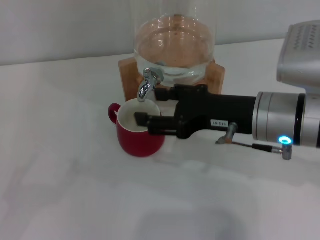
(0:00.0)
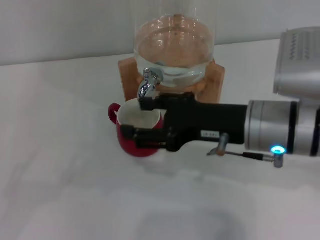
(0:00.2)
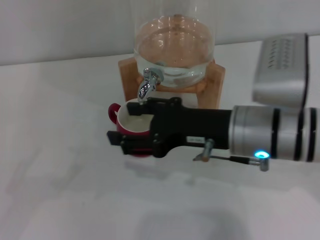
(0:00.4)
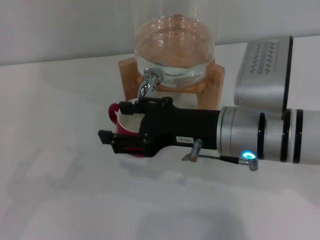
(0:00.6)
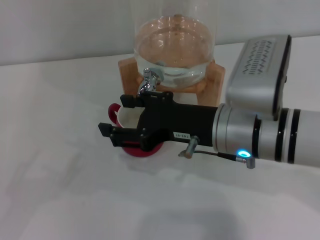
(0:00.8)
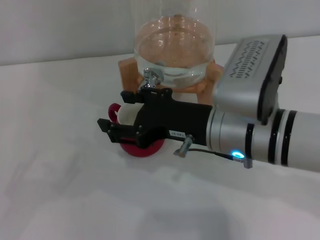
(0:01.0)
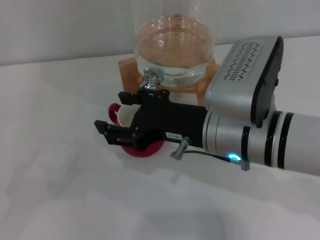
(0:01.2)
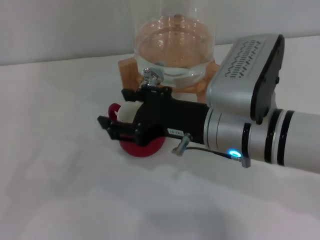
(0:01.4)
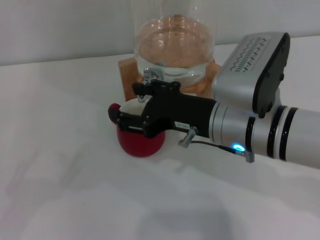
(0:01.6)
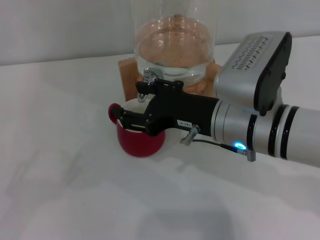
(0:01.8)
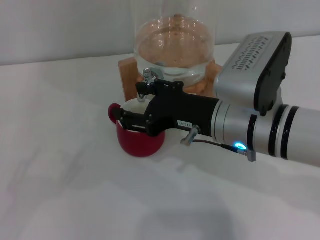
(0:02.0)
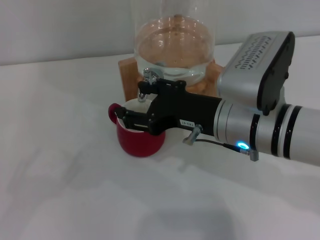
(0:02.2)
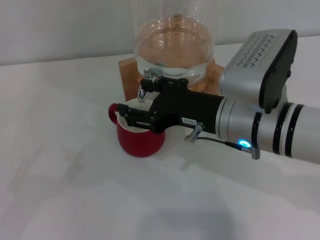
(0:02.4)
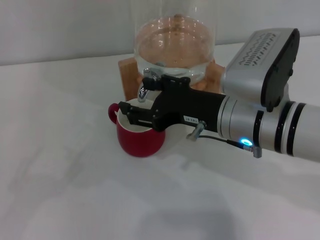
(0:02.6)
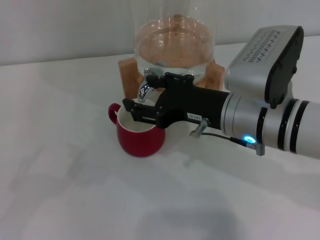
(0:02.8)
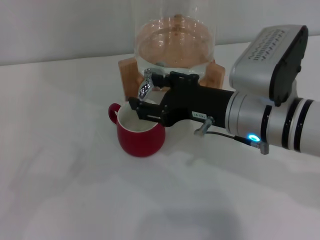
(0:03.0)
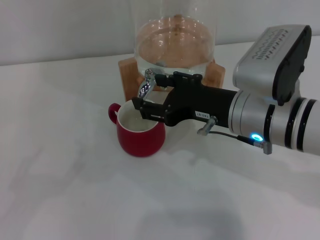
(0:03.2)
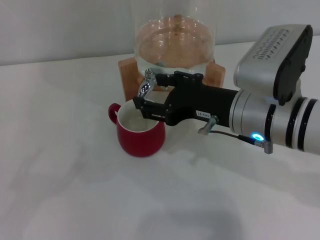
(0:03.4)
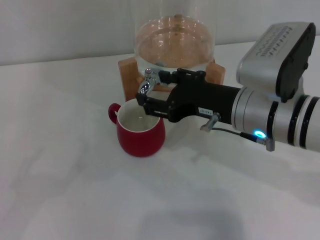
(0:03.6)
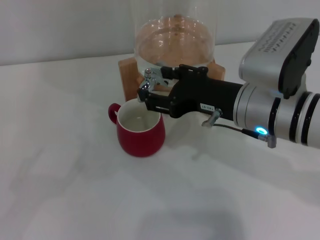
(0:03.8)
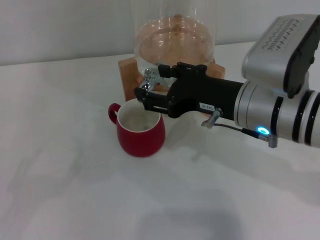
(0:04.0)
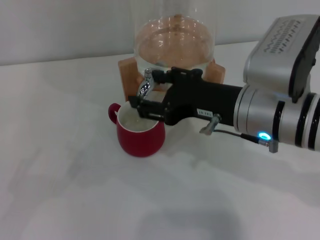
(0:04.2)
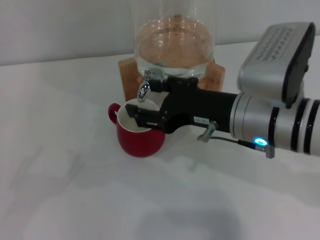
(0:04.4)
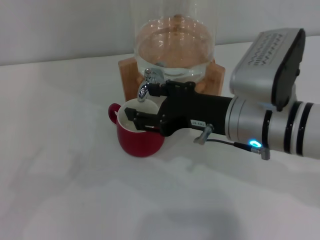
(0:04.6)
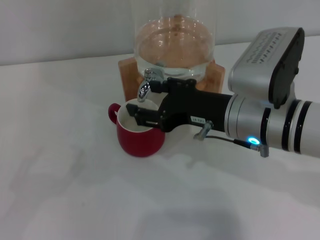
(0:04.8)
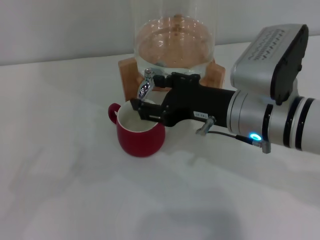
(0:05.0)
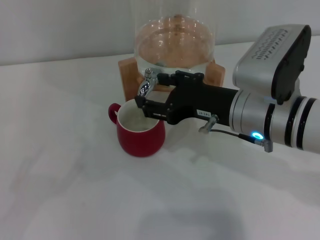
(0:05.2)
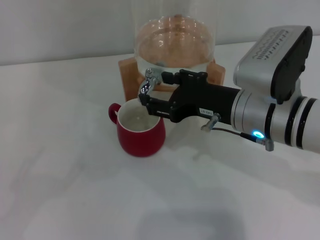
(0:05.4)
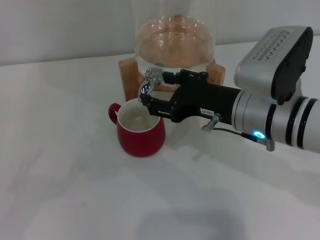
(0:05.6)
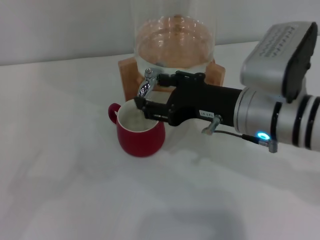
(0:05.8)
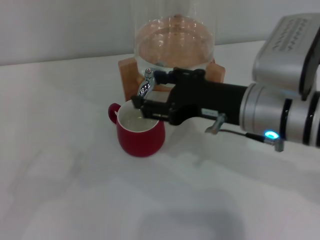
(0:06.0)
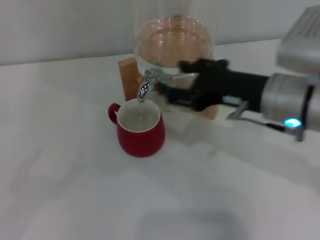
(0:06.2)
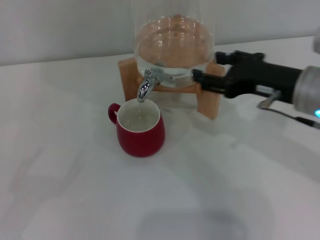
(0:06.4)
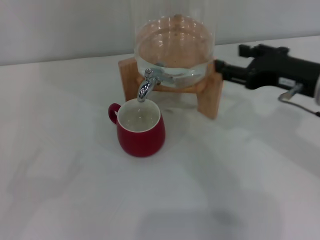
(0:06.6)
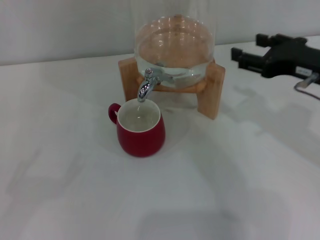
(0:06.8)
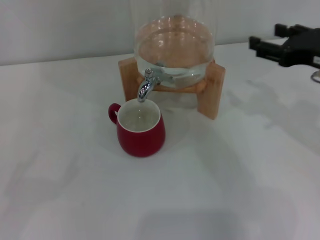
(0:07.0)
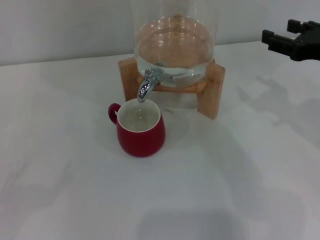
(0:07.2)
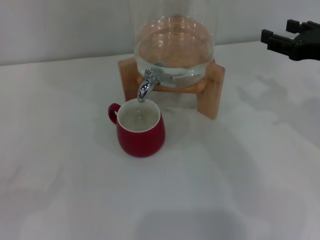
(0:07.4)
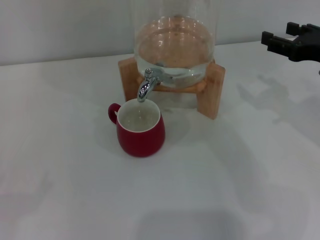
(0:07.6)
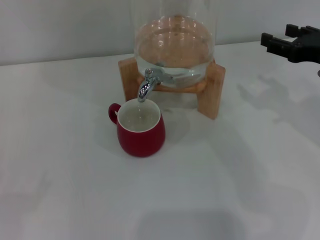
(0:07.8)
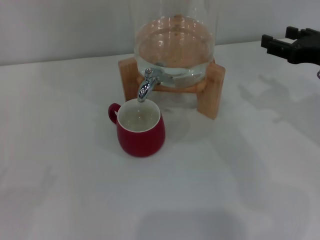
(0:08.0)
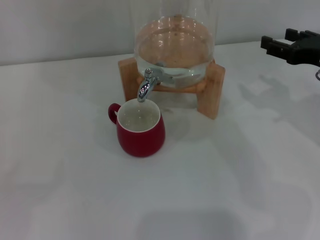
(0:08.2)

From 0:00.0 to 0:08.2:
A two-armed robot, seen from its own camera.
Task of the whole recording: the left gripper pick up the red cup and place it horizontally under the faucet, the right gripper turn on the faucet to fill the cup, and then turn off the faucet.
Step, from 0:01.6 to 0:06.2: Close the dispenser valve with the right gripper.
From 0:00.0 to 0:01.6: The right gripper moves to the left, about 5 cm.
From 0:01.6 to 0:05.0: The grippers make only small movements.
From 0:05.0 to 0:06.6: The right gripper heads to the right, covering approximately 10 cm.
From 0:06.6 to 0:08.2: The right gripper moves to the right, some 5 cm.
